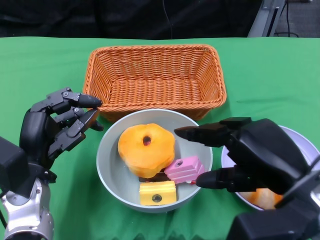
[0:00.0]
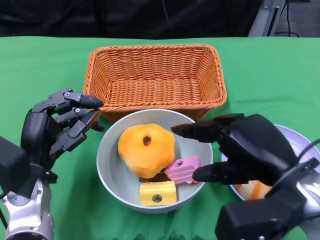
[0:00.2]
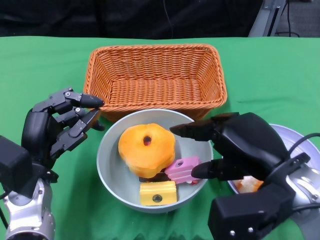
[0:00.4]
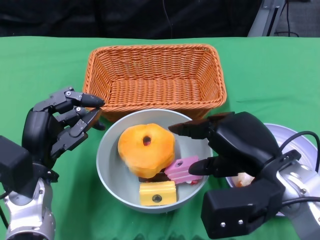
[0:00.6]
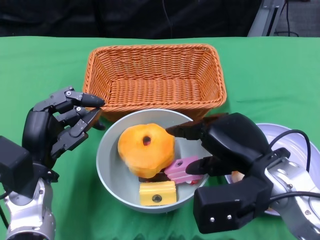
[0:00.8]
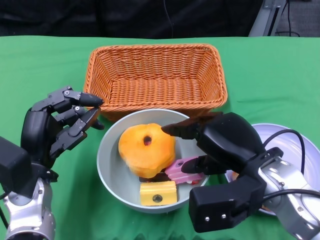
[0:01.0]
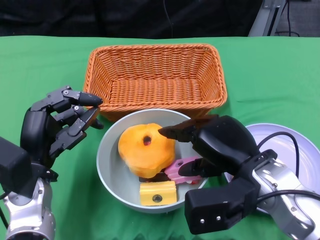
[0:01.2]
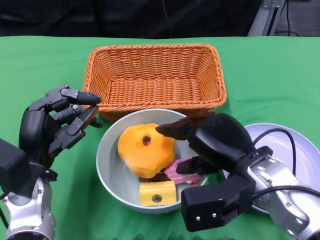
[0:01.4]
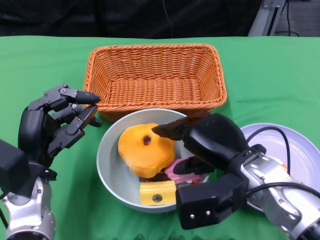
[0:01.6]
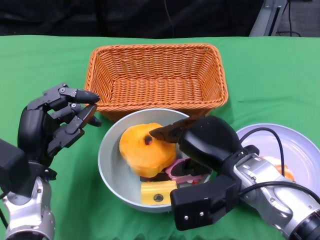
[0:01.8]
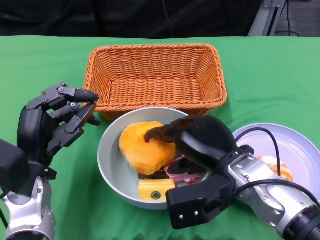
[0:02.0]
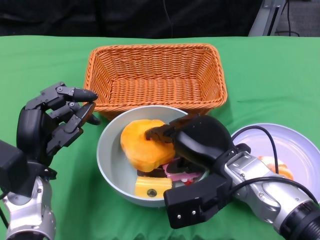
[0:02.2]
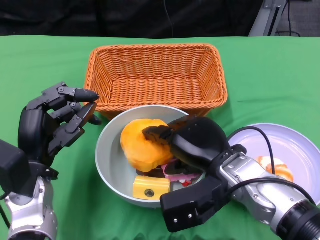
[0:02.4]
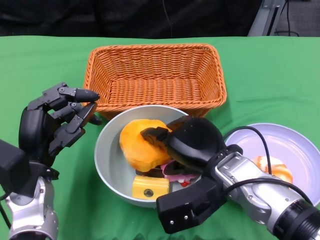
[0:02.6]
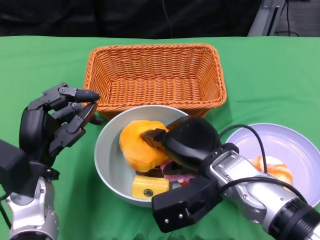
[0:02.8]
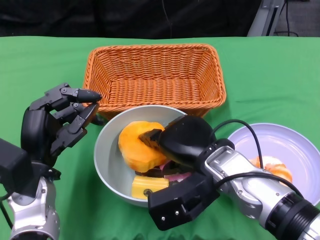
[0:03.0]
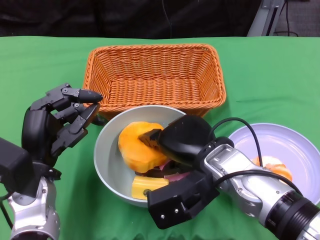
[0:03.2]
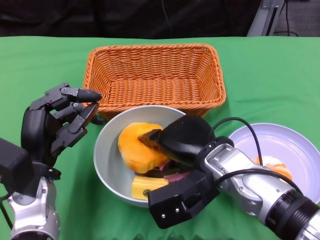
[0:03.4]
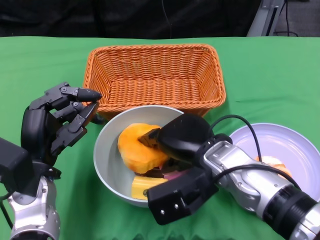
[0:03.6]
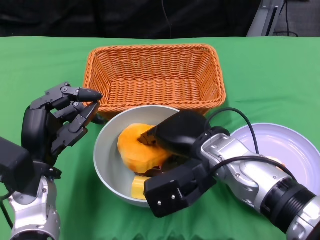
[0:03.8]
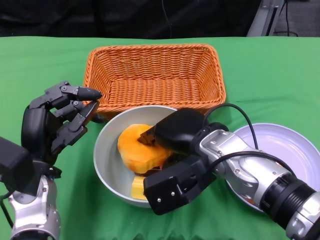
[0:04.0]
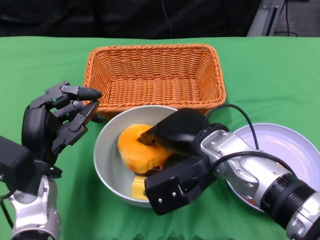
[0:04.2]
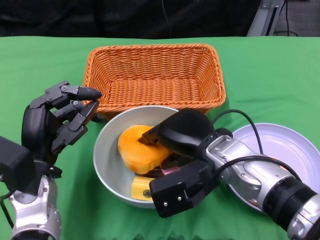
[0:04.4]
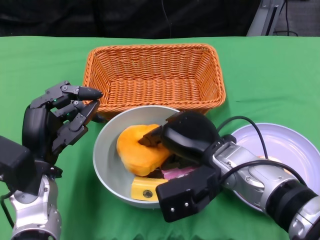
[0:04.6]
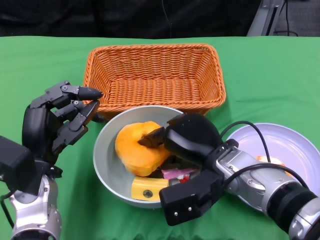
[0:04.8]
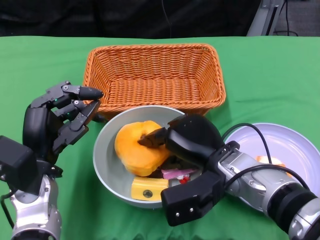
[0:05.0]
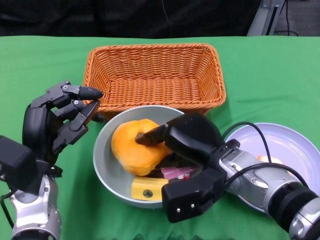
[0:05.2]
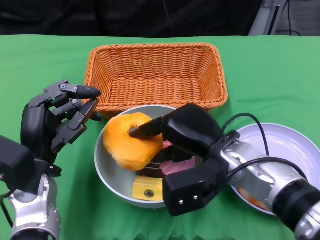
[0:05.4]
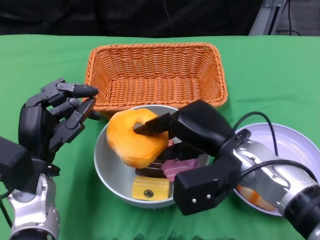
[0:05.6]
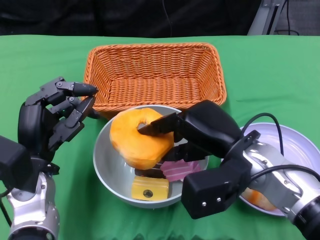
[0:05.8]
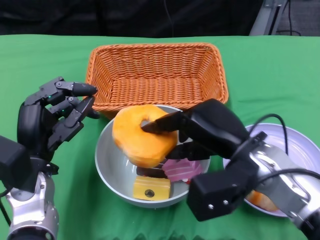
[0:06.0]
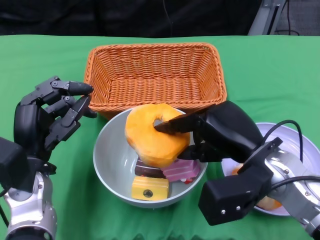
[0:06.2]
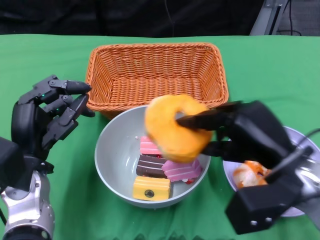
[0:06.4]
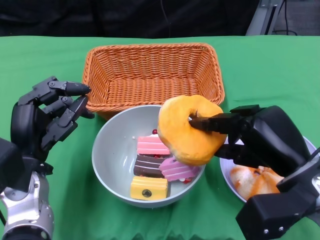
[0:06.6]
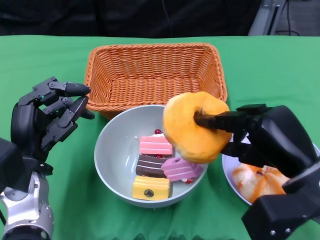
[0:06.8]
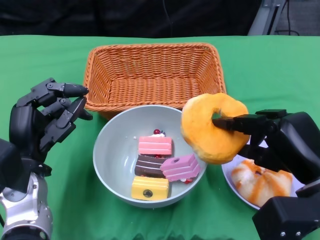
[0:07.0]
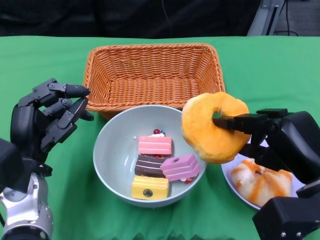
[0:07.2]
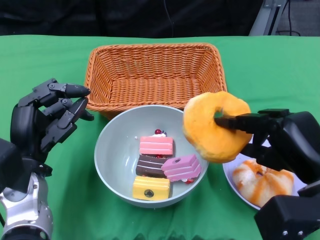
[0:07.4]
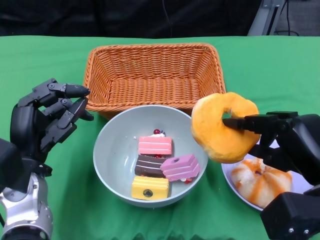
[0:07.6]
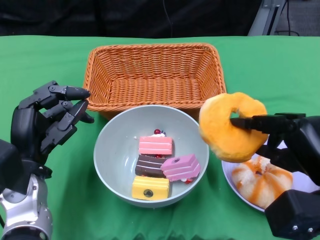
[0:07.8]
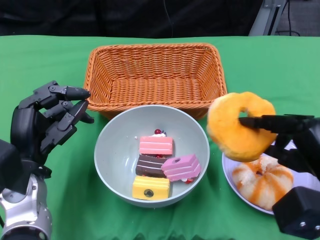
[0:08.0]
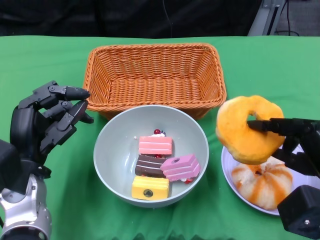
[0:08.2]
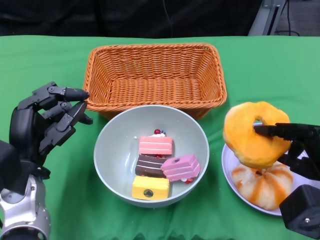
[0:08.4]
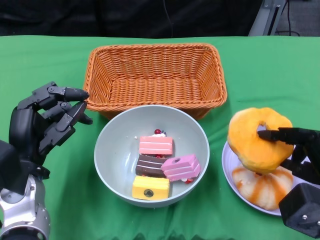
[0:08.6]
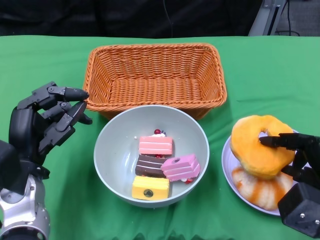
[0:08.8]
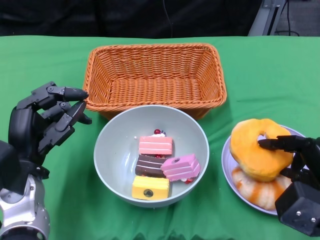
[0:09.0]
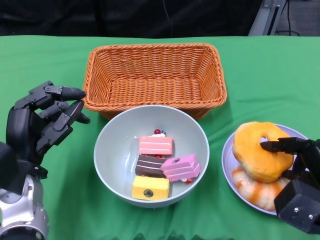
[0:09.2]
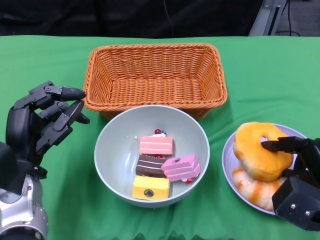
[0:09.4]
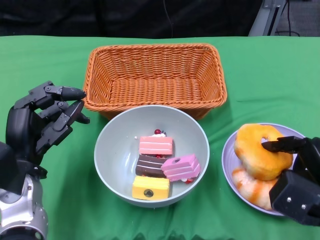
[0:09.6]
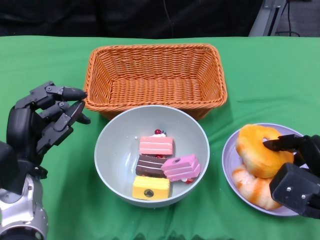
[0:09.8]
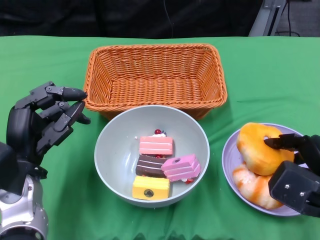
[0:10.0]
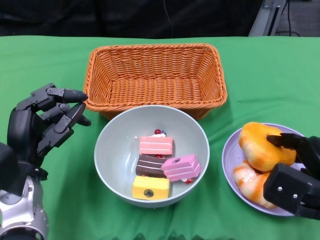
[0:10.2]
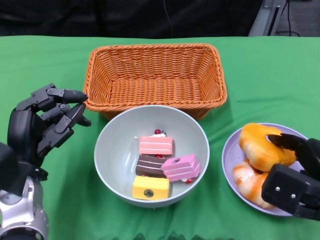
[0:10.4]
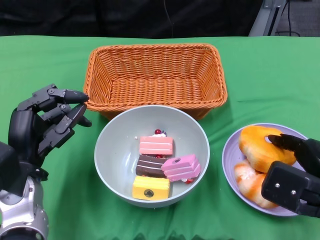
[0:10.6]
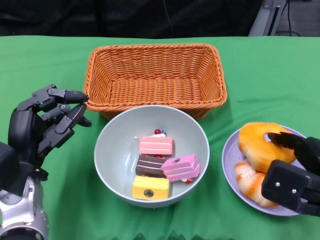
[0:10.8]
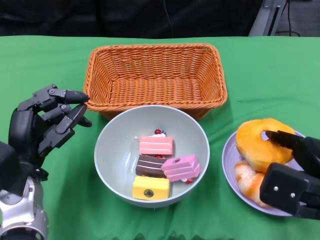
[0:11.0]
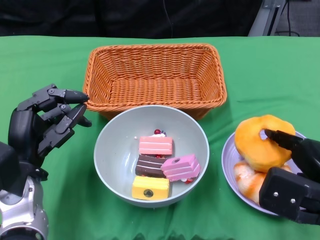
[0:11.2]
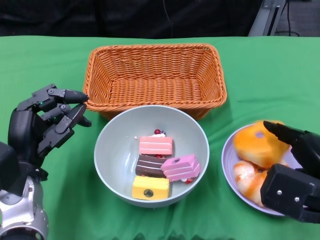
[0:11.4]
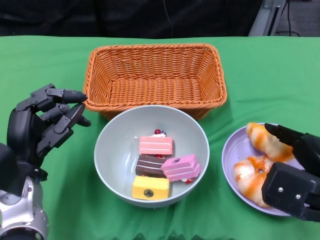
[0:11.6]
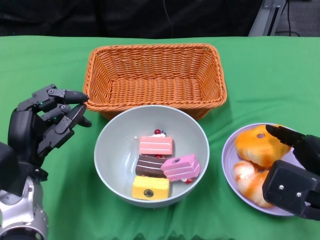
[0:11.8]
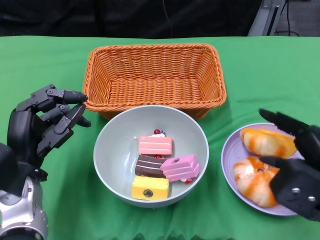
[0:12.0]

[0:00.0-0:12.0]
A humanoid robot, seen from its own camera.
0:00.0 to 0:01.6: The right hand travels forward, to the left and downward by some 10 cm.
0:03.0 to 0:04.4: There are only small adjustments of the hands.
0:04.4 to 0:06.0: The right hand shifts by approximately 5 cm.
0:06.0 to 0:07.6: The right hand goes approximately 10 cm to the right and backward.
0:07.6 to 0:09.0: The right hand ends up about 5 cm from where it was.
0:09.0 to 0:10.4: The hands make only small movements.
0:10.4 to 0:12.0: The hands stay close to where they were, moving slightly.

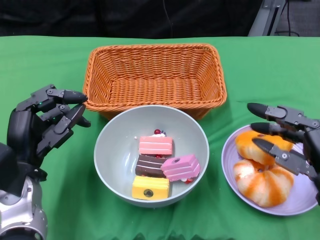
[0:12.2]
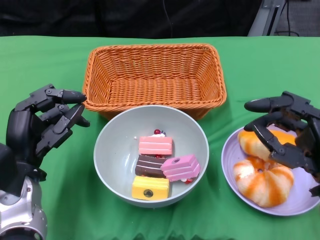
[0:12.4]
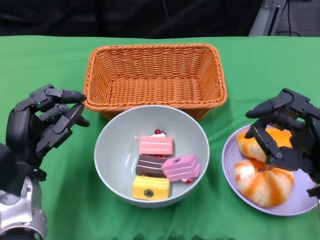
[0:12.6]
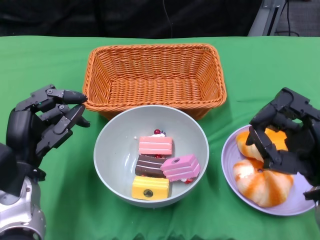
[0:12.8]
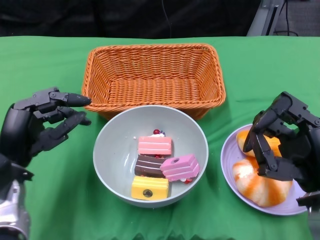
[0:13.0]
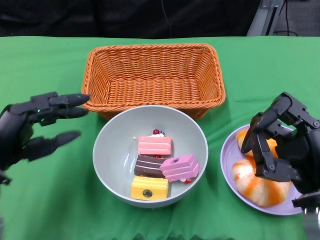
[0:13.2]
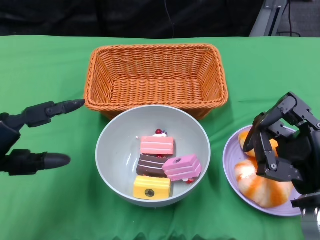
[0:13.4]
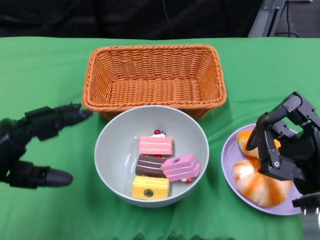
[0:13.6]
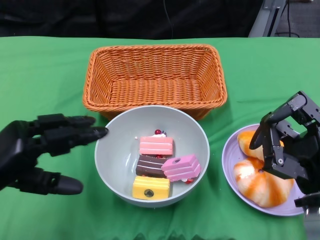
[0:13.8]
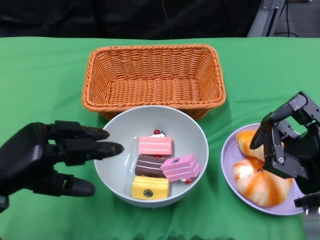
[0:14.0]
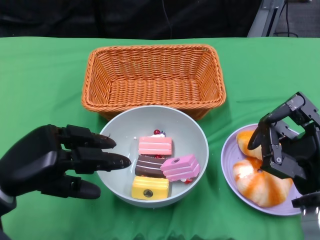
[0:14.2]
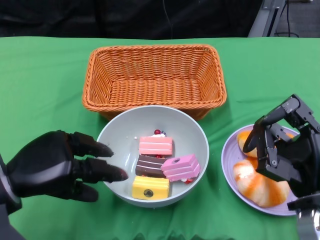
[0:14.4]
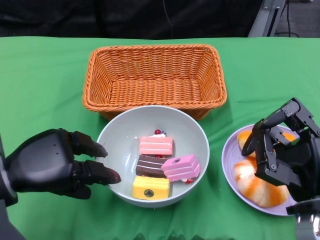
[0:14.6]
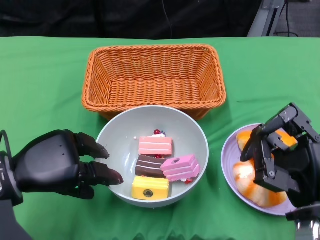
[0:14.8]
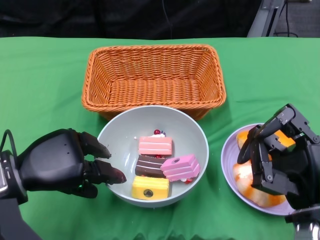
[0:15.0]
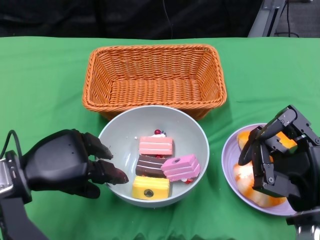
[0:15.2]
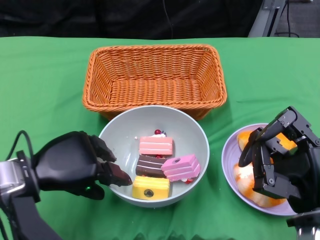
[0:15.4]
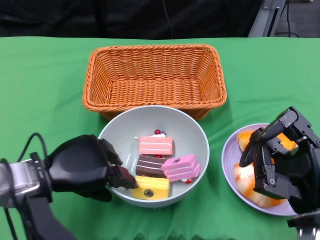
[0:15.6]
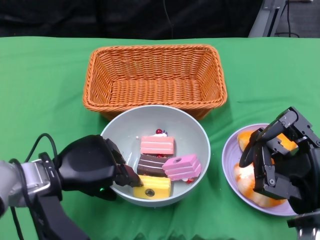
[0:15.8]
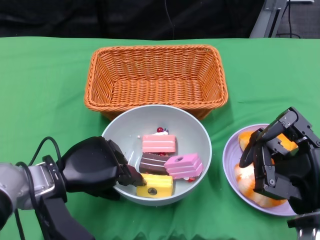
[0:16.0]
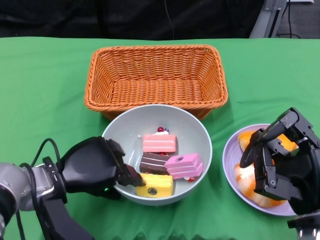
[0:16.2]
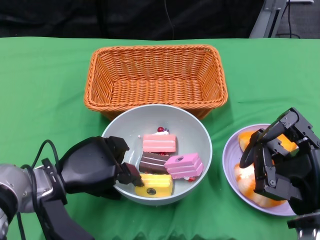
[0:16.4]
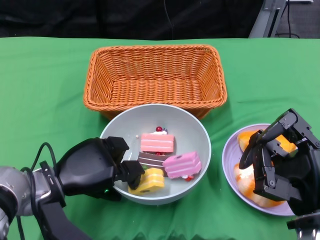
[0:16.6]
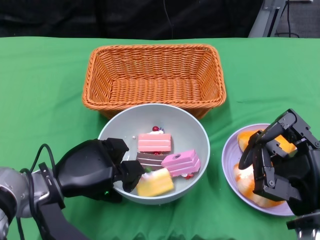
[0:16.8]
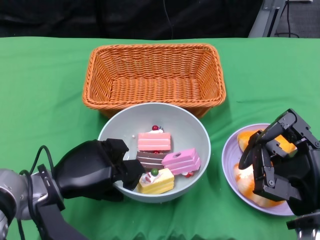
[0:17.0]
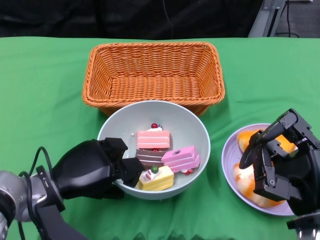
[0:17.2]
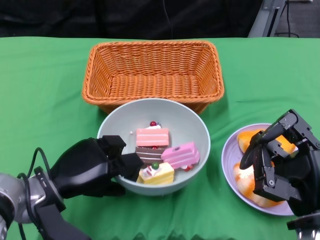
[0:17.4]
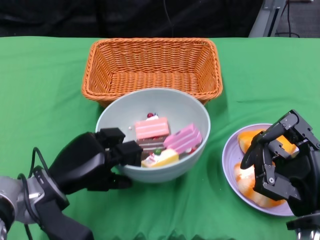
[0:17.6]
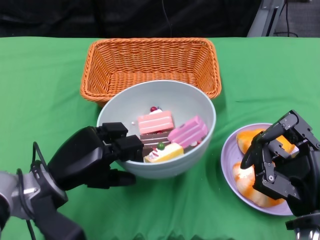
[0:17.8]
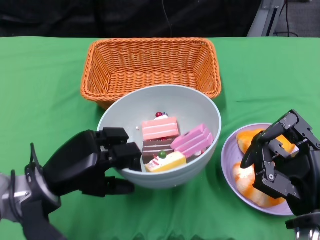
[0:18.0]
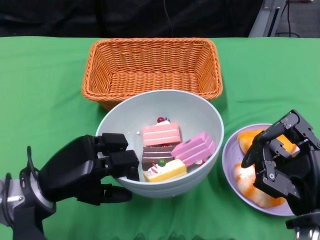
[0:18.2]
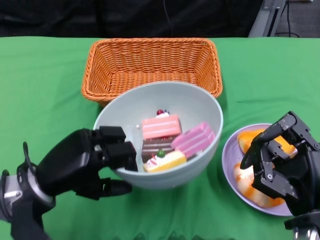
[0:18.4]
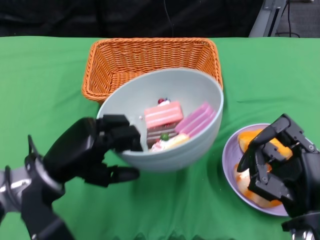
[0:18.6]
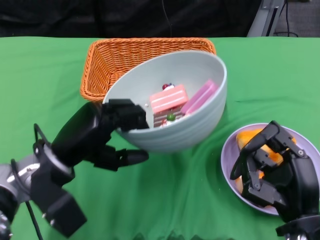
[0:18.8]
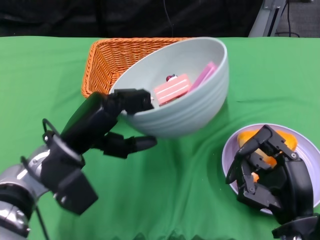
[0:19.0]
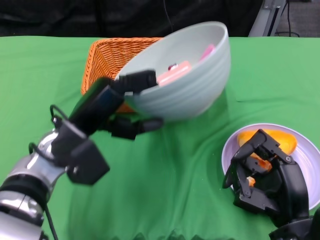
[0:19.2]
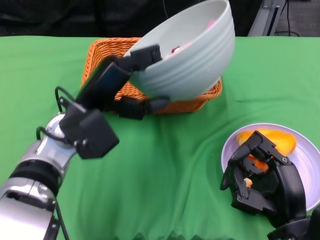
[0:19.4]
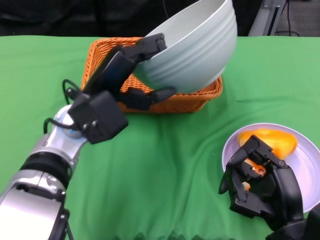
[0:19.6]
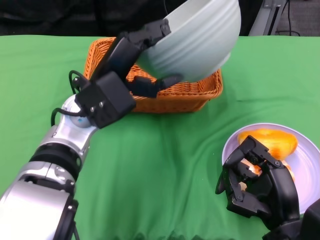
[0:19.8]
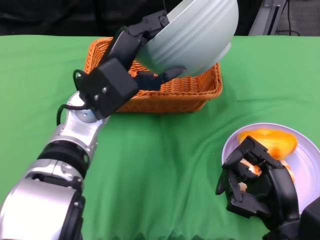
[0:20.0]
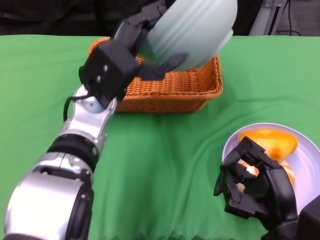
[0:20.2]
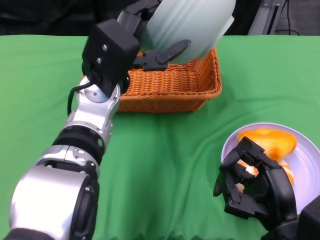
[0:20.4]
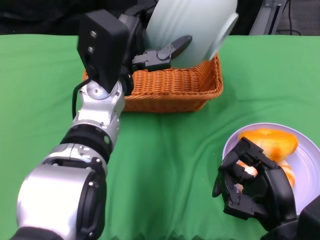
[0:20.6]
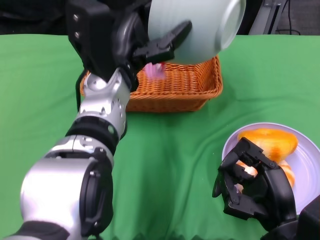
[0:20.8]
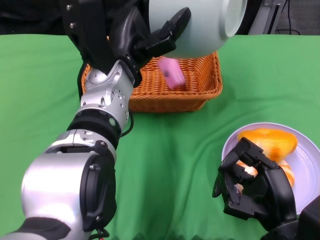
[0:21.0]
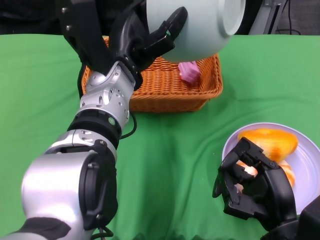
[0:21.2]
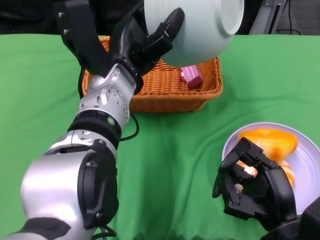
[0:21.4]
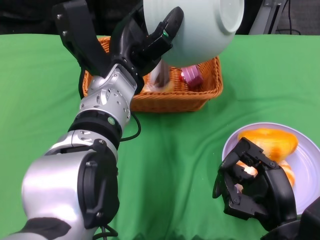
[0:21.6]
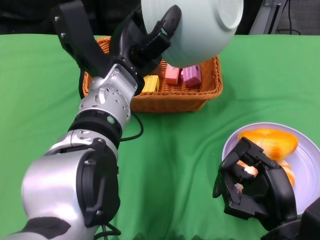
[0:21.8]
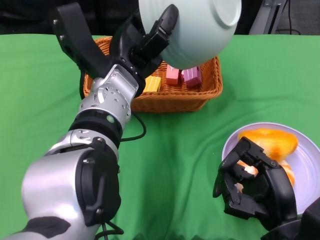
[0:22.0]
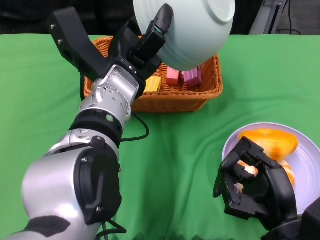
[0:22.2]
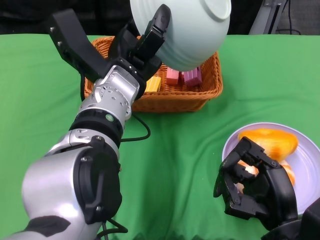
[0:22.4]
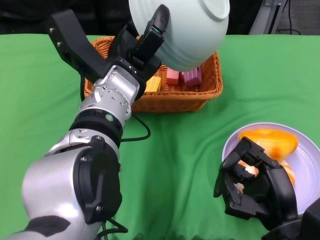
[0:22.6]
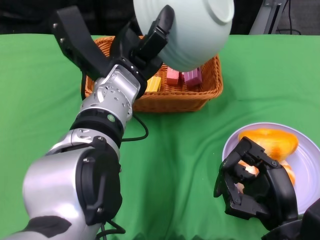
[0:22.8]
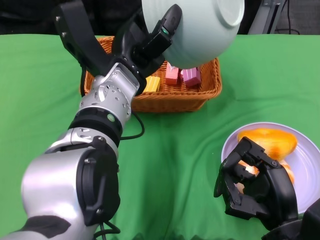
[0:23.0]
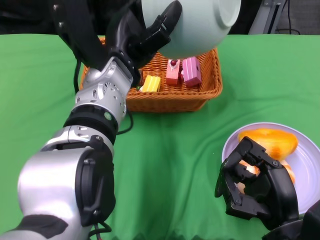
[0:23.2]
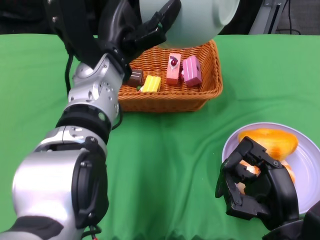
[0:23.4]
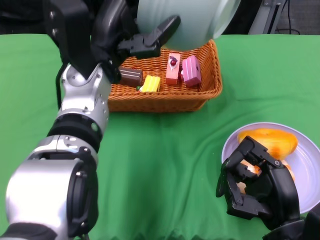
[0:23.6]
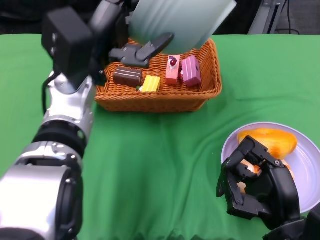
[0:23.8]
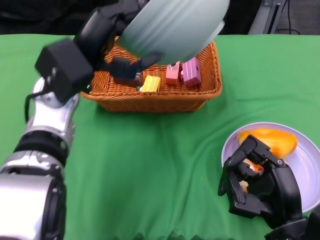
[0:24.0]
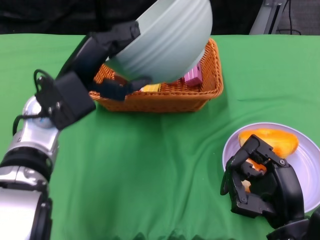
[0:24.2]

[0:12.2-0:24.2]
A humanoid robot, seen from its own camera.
Step, 0:12.4 to 0:16.8: Grasp the bowl with the left gripper.
Step, 0:17.0 to 0:22.8: Pour the cake into the basket with the left gripper.
0:12.2 to 0:13.8: The left hand shifts some 5 cm to the left.
0:13.8 to 0:15.2: The left hand ends up some 5 cm from where it was.
0:15.2 to 0:16.6: The left hand moves roughly 5 cm.
0:18.2 to 0:19.8: The left hand moves upward, to the right and forward, some 15 cm.
0:19.8 to 0:21.2: The left hand shifts by some 5 cm.
0:22.6 to 0:24.2: The left hand is displaced to the left by about 10 cm.
